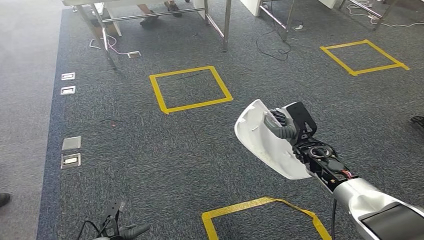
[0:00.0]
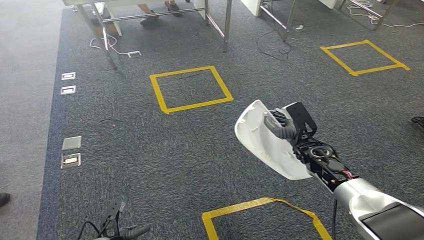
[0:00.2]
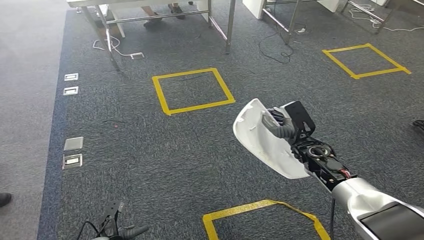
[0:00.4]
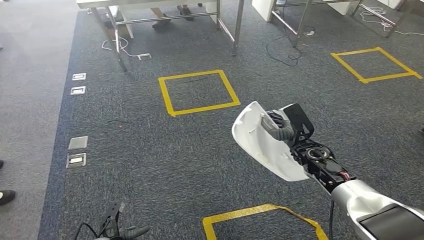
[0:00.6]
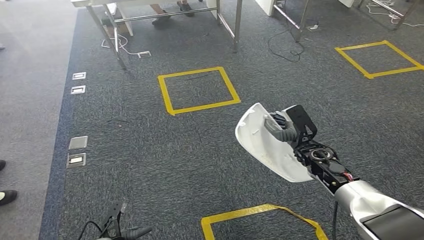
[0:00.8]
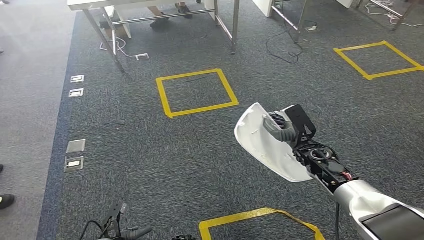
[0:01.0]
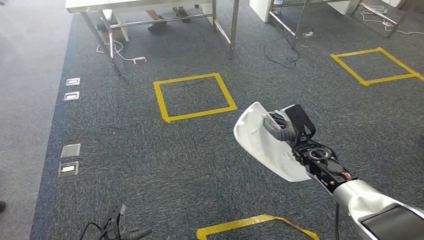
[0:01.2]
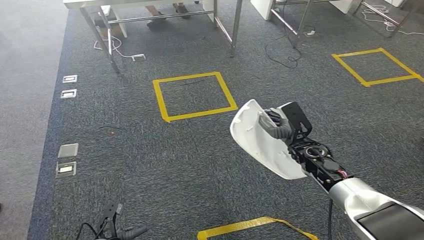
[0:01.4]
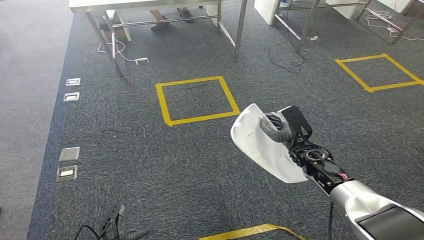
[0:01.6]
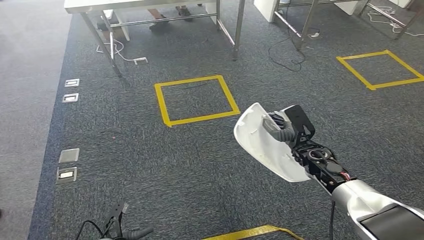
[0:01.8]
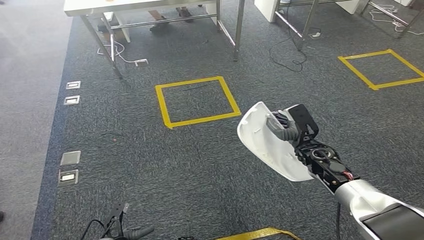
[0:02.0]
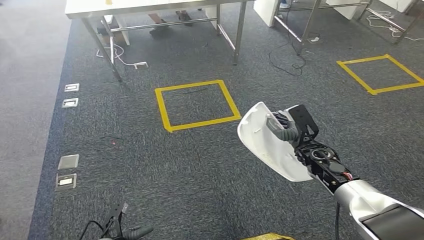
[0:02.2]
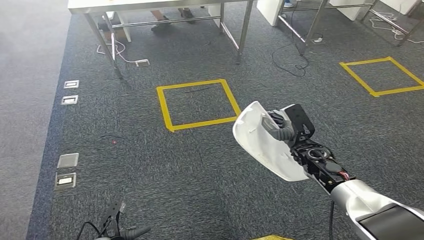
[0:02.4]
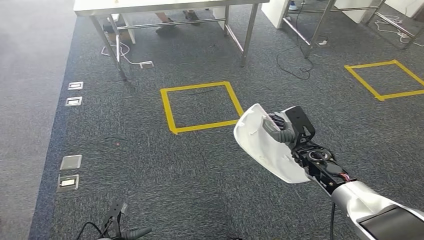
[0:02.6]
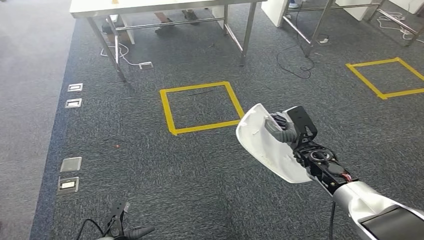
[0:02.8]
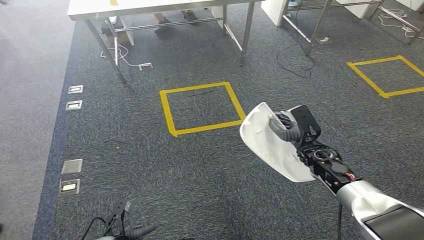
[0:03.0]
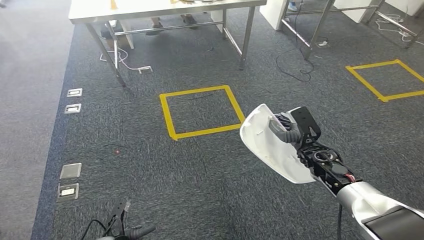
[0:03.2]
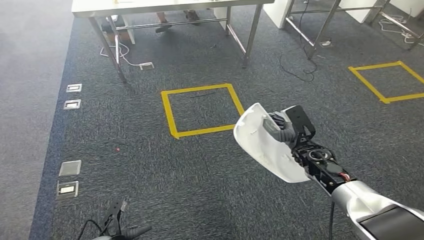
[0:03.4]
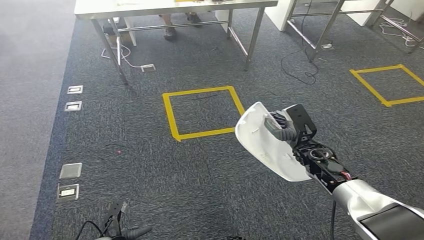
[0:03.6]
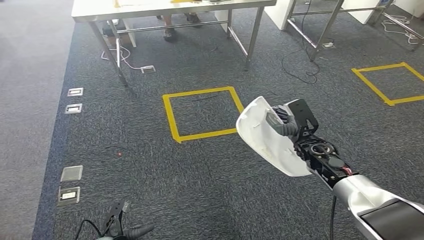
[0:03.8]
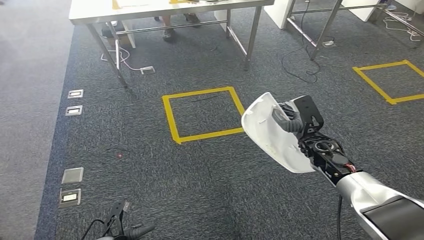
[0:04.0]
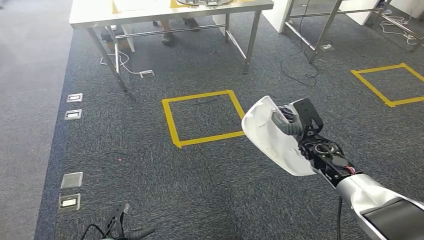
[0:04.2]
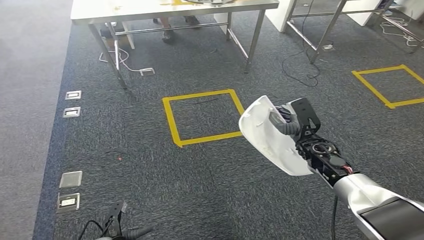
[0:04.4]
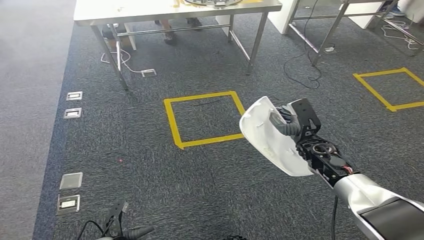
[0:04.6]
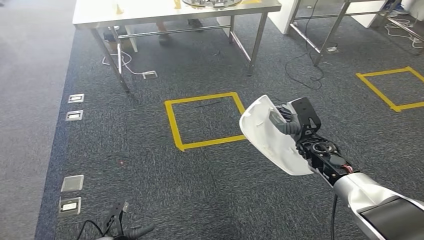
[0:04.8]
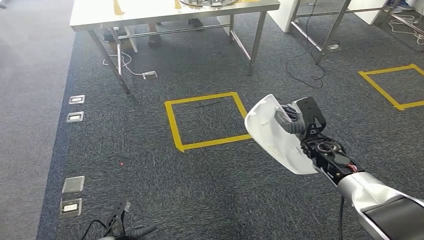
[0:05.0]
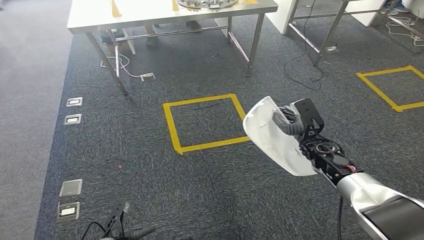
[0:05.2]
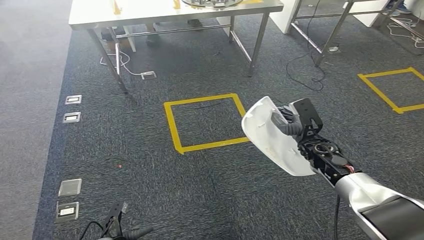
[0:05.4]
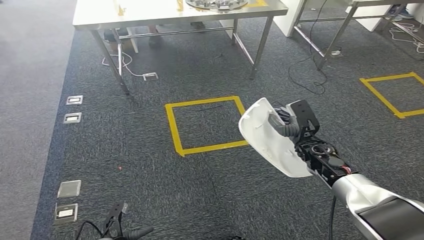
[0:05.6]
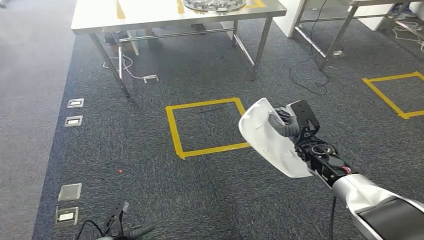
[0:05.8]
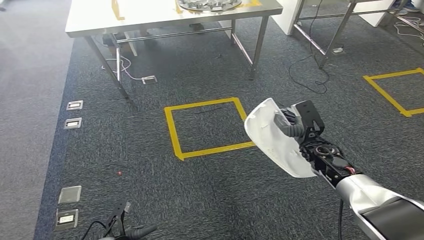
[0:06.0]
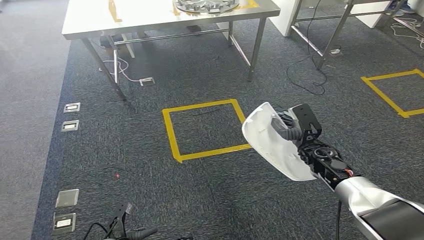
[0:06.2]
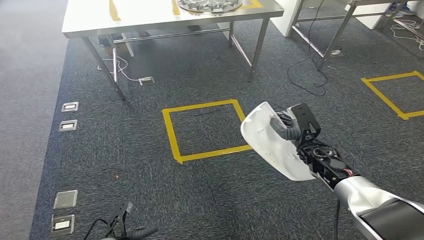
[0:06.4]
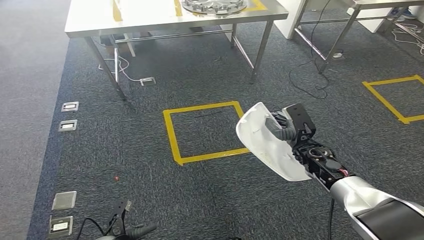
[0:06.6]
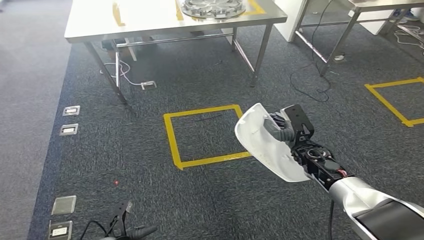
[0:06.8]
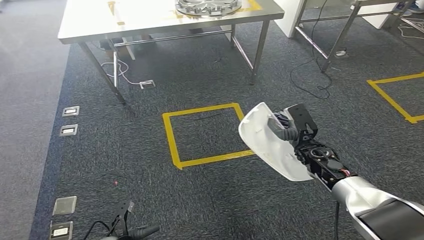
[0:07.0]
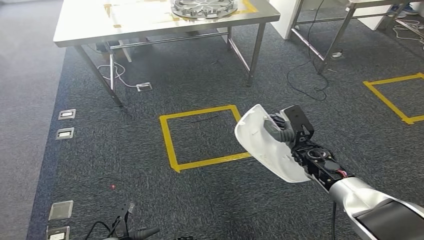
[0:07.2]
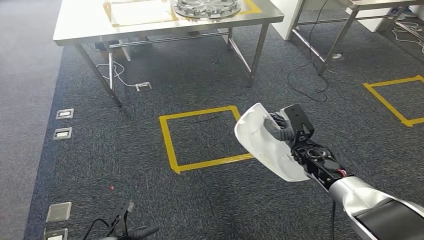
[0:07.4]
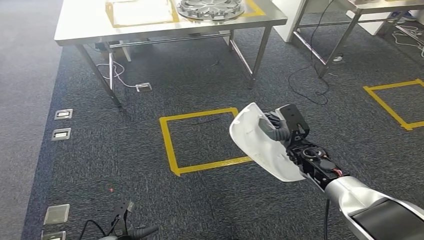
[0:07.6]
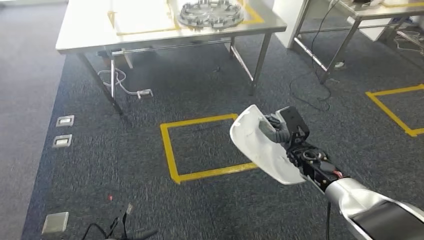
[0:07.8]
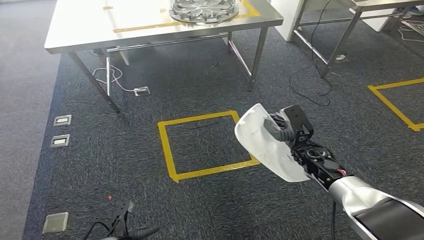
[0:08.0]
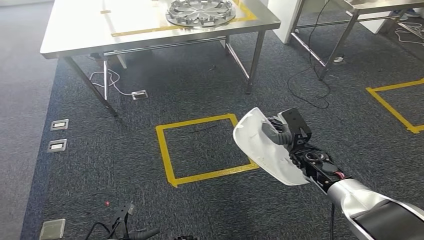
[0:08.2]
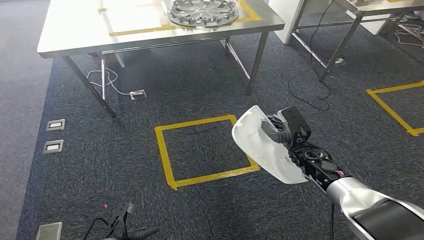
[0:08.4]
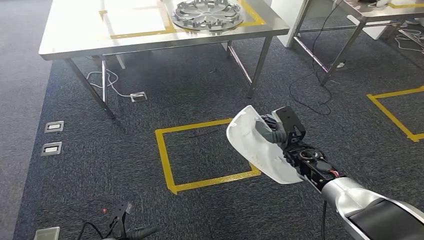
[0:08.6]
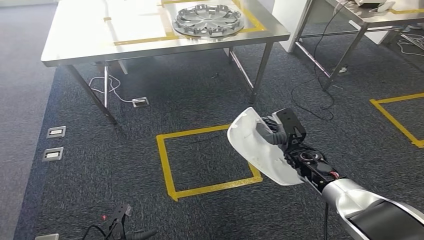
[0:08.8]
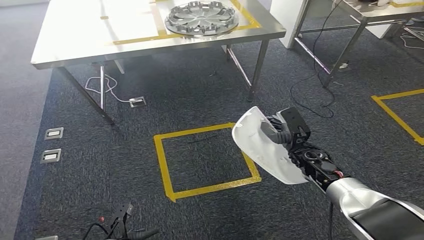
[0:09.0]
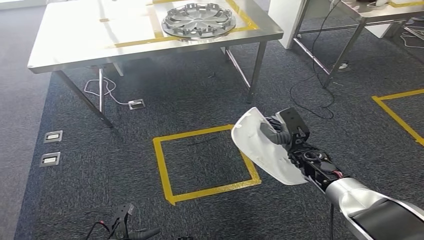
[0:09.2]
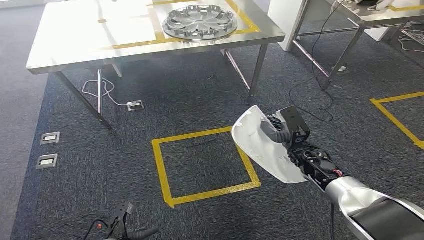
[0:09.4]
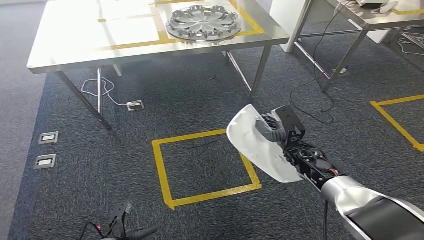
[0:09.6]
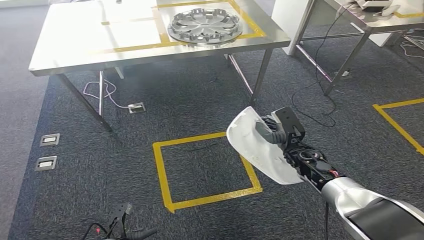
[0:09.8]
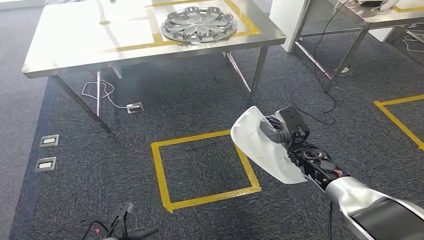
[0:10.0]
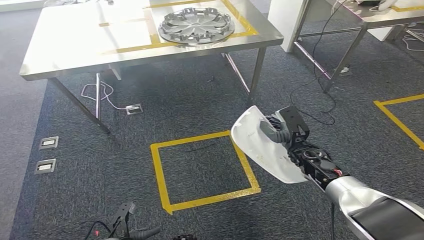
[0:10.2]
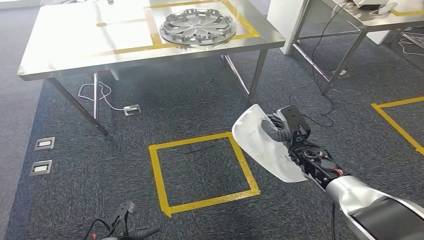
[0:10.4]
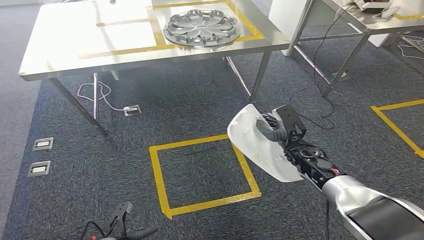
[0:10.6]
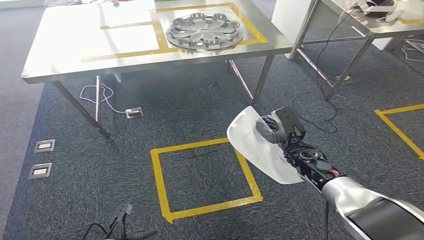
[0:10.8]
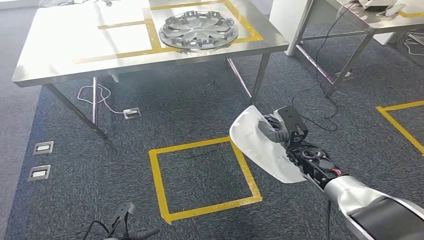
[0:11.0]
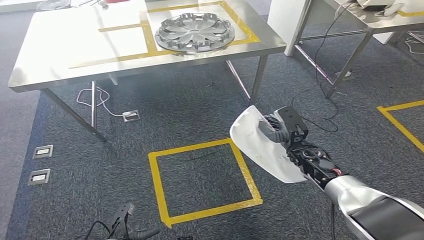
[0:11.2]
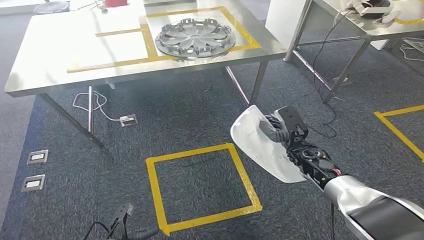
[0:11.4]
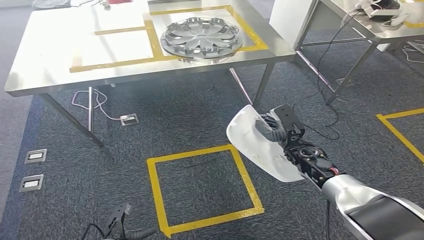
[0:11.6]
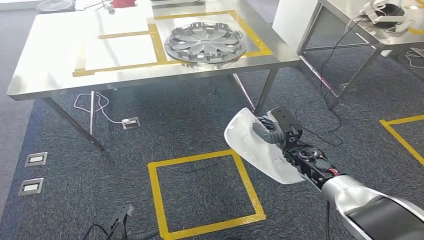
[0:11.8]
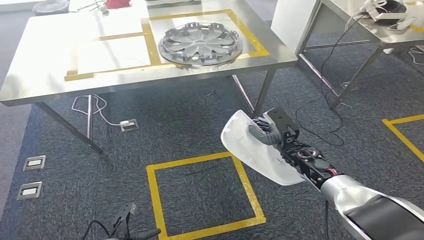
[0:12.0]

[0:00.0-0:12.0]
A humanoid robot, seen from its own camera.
Step, 0:00.0 to 0:09.8: Move the small parts to the workbench.
0:00.0 to 0:01.6: Neither hand changes place.
0:01.6 to 0:03.0: Both hands stay about where they are.
0:03.0 to 0:04.4: The hands stay close to where they were, moving slightly.
0:04.4 to 0:06.0: Both hands stay put.

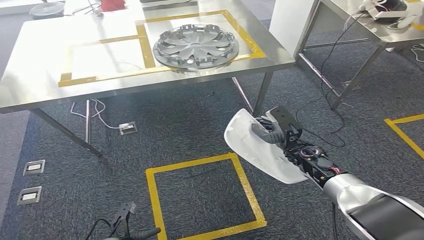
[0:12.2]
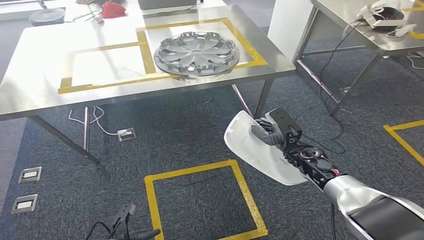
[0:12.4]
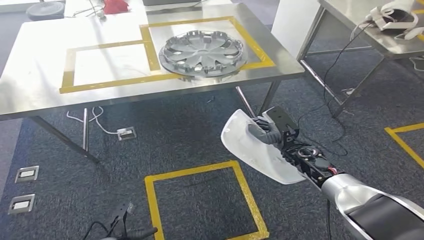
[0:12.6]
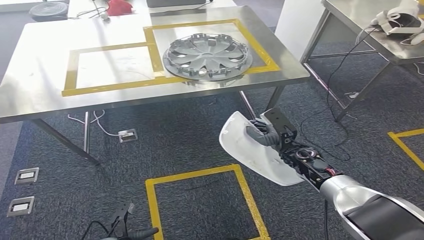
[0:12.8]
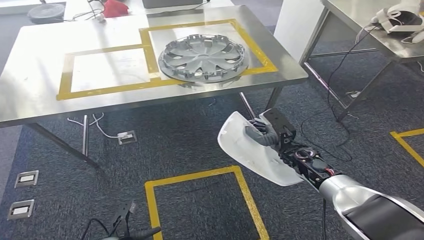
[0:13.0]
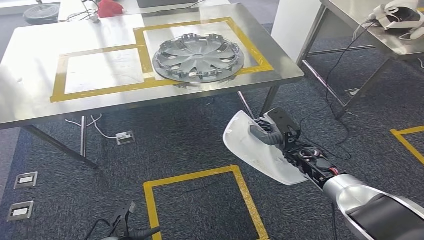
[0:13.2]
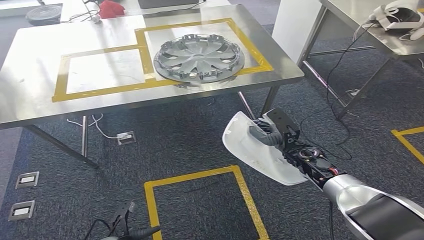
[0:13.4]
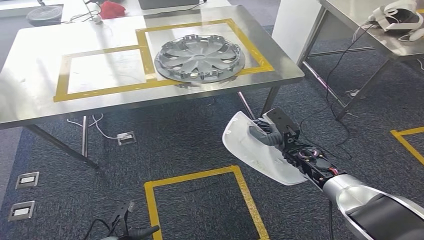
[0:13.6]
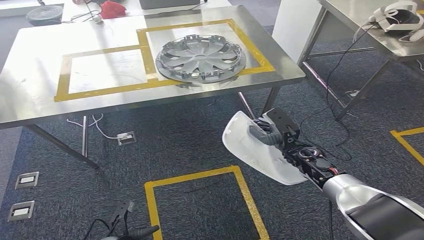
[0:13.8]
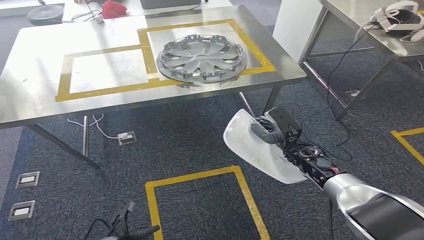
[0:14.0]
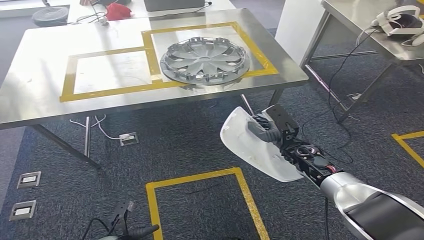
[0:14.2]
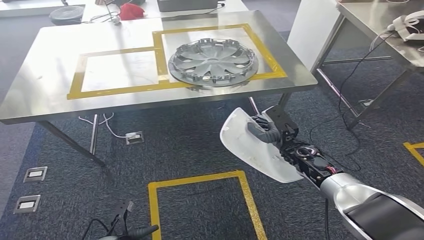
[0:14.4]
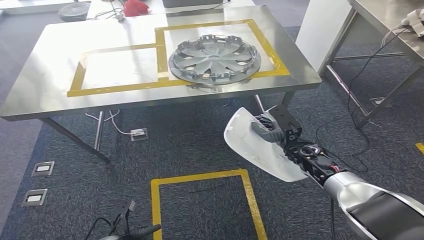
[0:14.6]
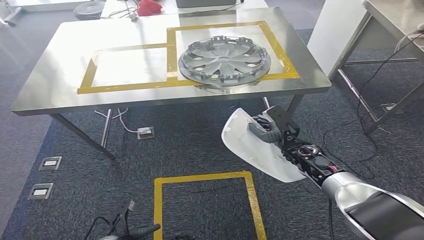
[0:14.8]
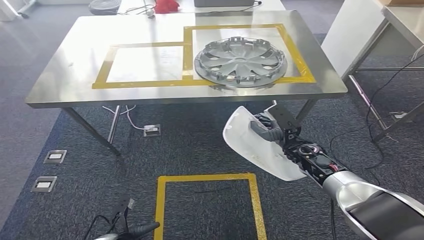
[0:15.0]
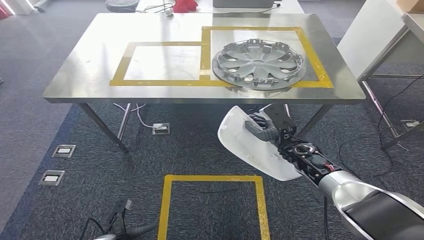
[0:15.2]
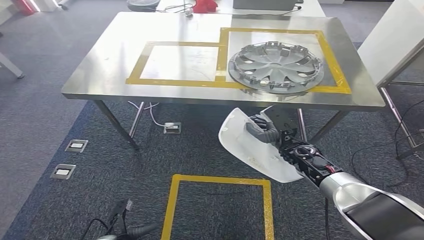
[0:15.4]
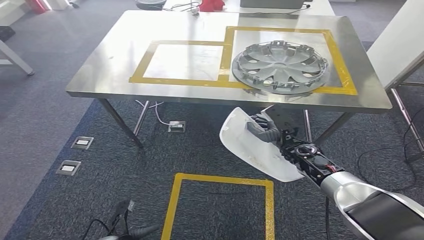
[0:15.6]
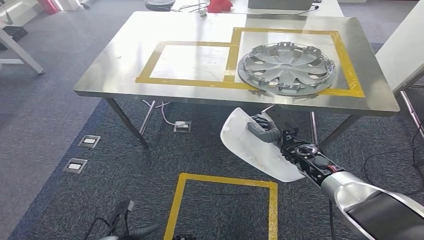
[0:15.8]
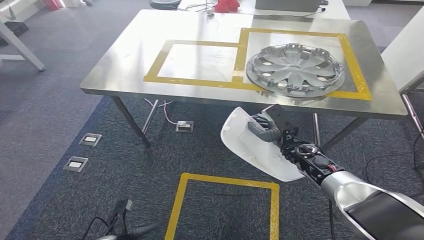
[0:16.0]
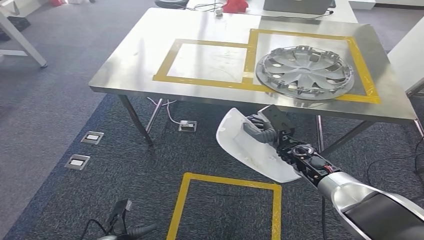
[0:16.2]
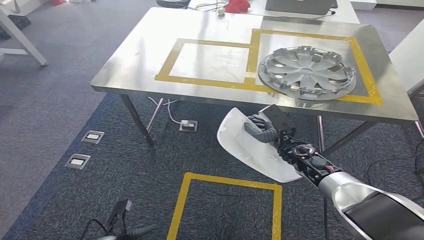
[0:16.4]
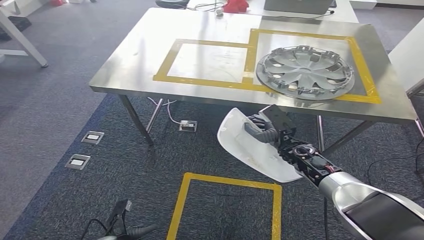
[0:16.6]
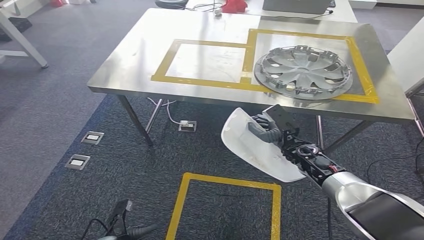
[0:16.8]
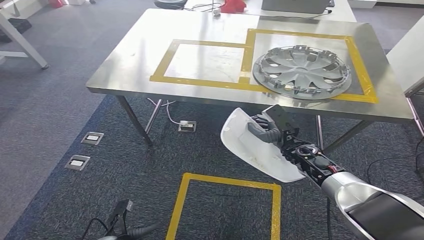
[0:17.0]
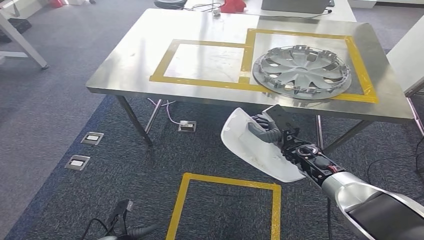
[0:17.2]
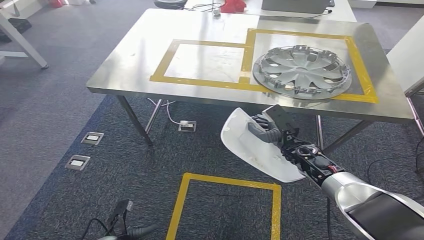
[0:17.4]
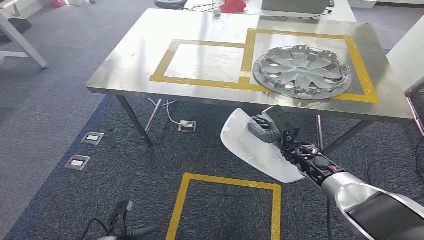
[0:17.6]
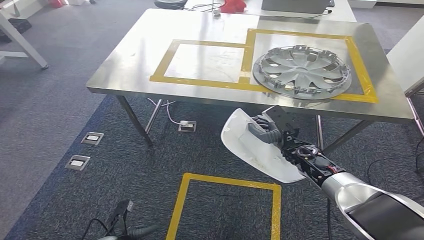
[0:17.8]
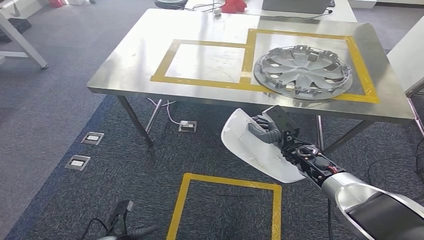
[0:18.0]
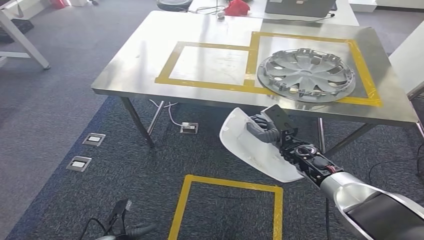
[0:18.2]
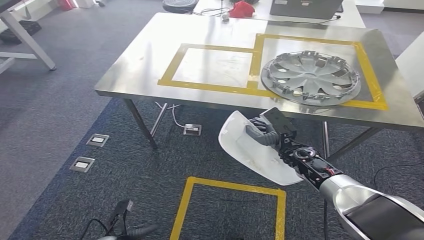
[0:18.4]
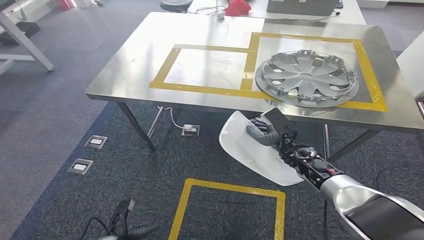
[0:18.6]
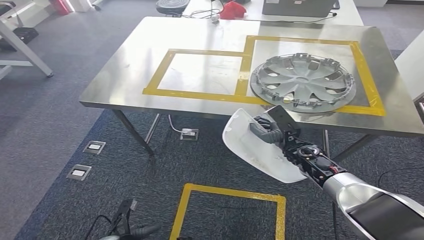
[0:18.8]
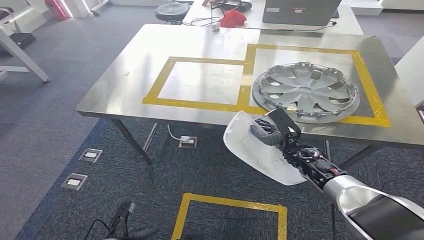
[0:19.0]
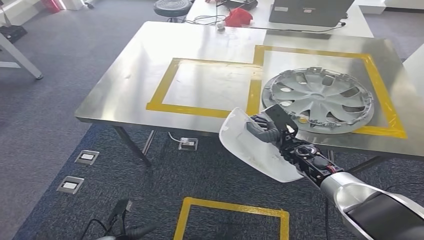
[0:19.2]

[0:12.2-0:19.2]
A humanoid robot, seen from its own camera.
0:16.4 to 0:17.8: Both hands stay put.
